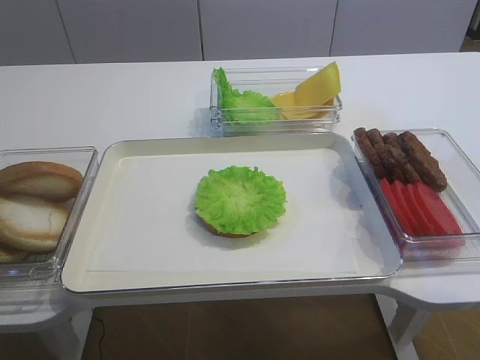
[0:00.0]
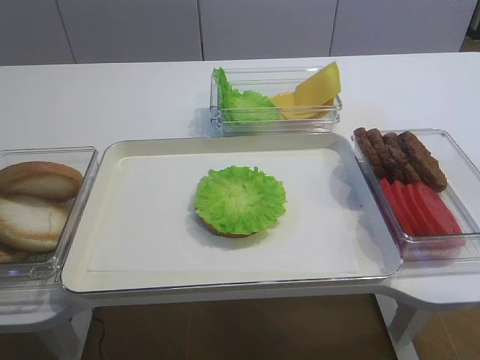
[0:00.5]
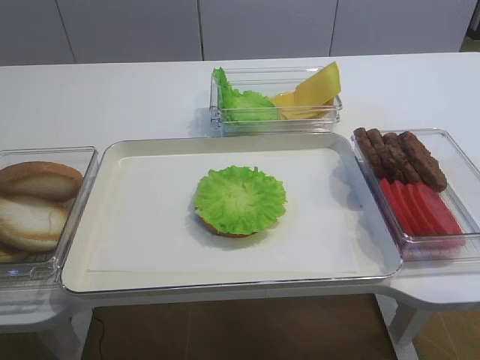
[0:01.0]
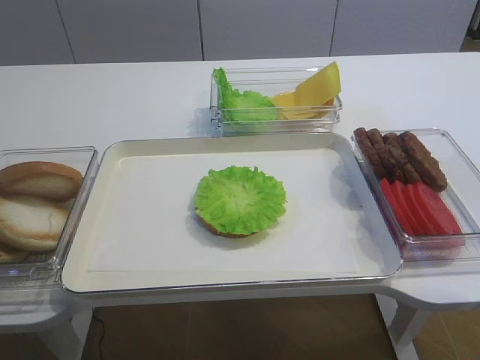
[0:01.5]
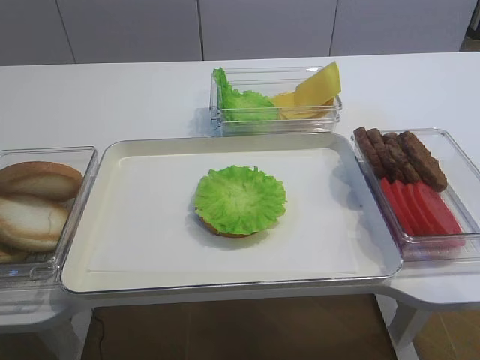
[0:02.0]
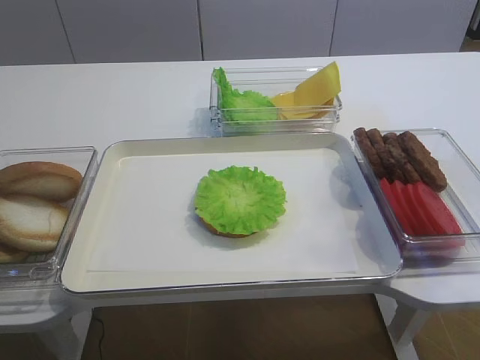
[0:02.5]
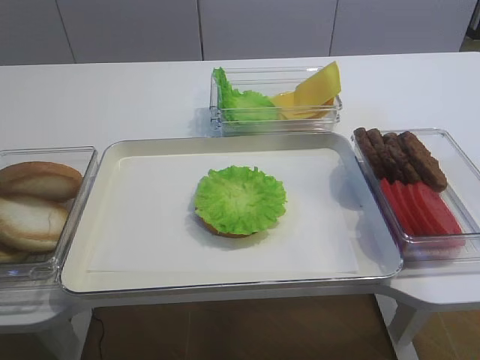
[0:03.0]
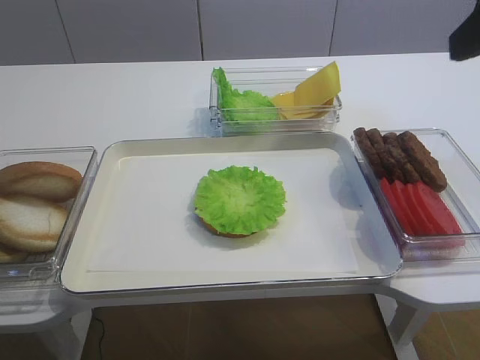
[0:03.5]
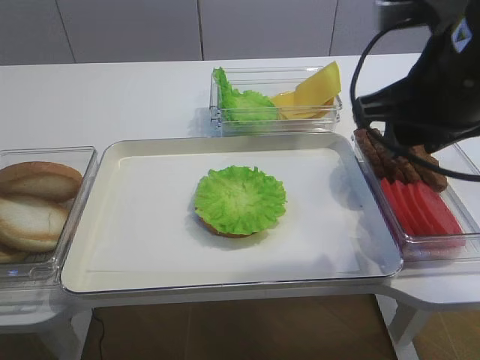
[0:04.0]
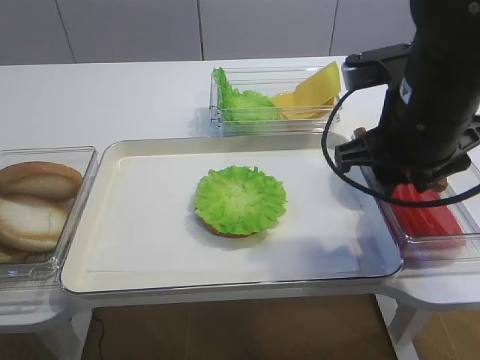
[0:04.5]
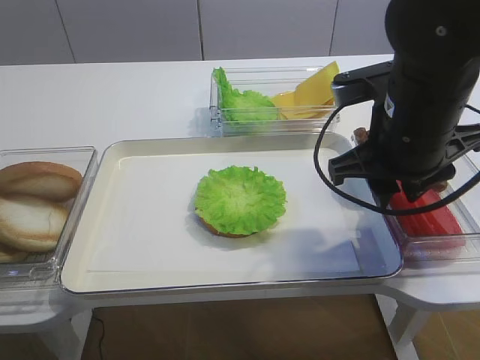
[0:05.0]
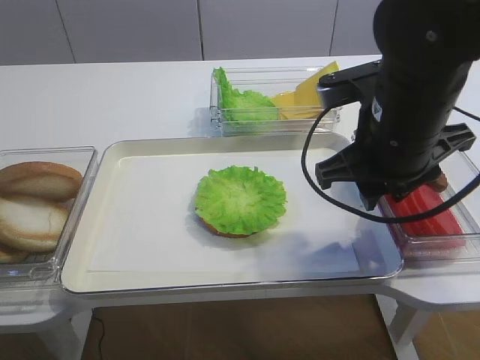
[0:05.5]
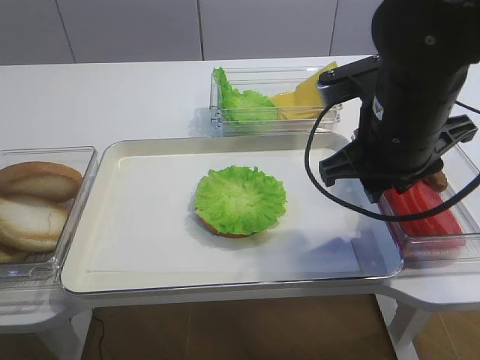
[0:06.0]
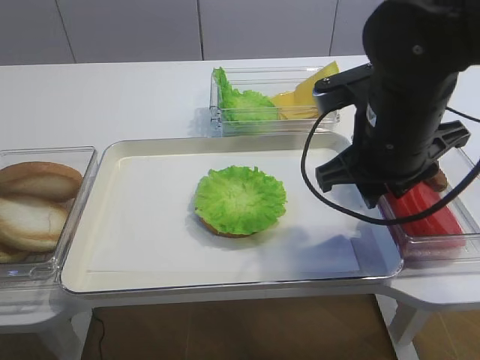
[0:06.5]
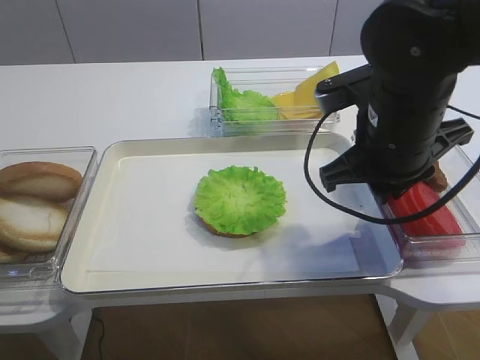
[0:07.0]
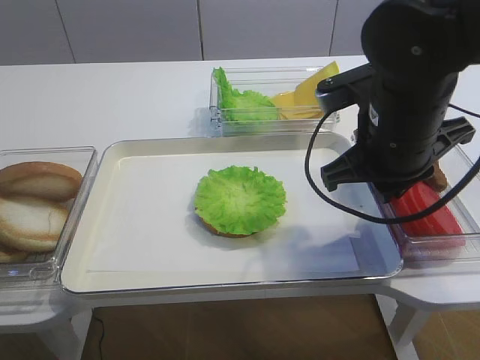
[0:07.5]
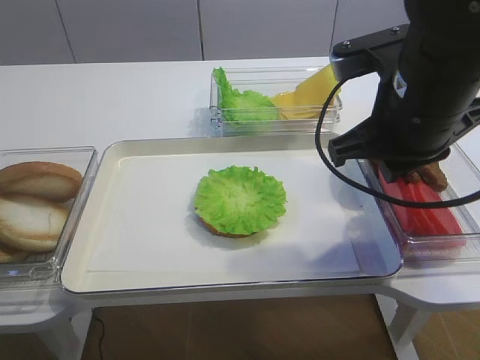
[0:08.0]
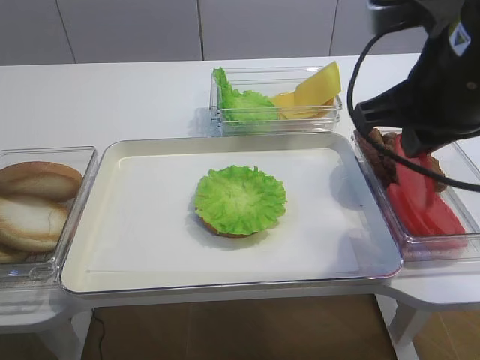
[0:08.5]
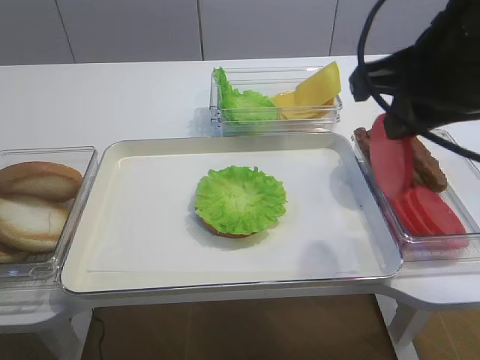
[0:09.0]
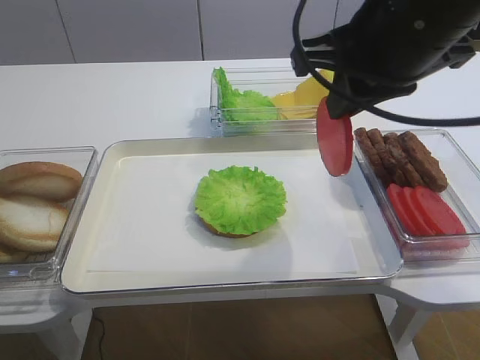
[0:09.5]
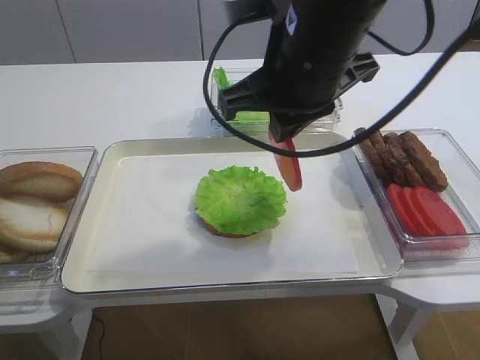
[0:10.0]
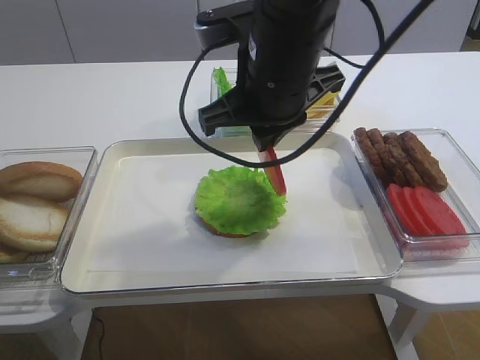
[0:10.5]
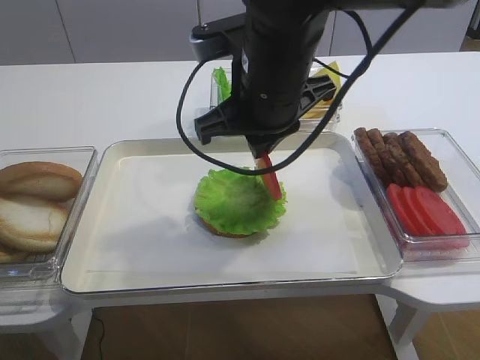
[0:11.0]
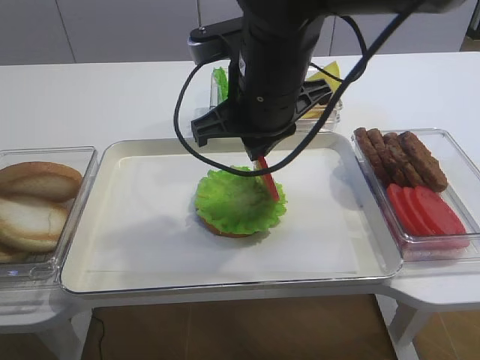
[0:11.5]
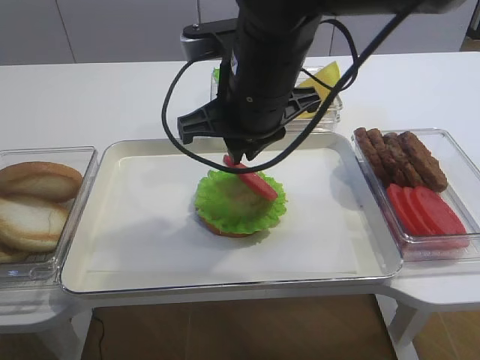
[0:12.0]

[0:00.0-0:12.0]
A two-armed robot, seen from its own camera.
Step, 0:00.0 to 0:08.5: Pick up the tomato slice with the right gripper.
0:02.0 to 0:04.0: The right gripper shifts roughly 25 cm forward and to the left.
0:04.0 to 0:06.0: The right gripper travels downward by approximately 5 cm.
0:06.0 to 0:08.0: The right gripper closes up.
0:08.0 to 0:10.0: The right gripper is displaced to the left by approximately 10 cm.
0:10.0 to 0:12.0: The right gripper changes place by roughly 5 cm.

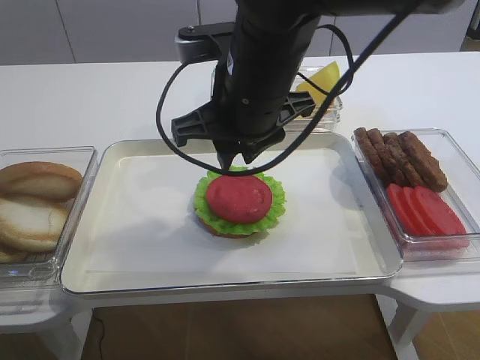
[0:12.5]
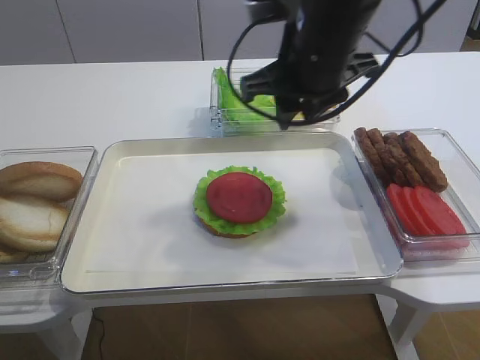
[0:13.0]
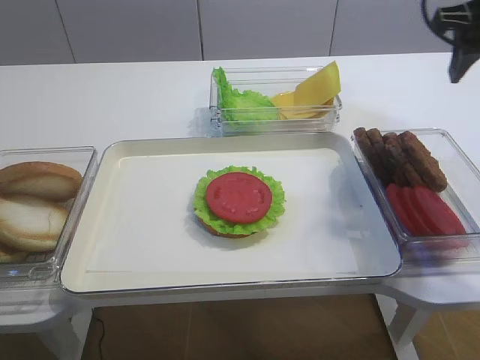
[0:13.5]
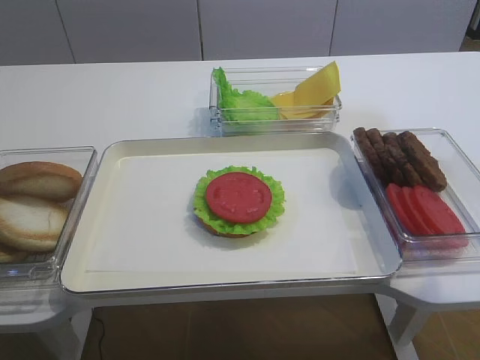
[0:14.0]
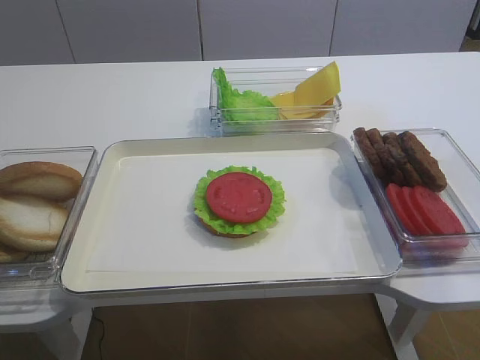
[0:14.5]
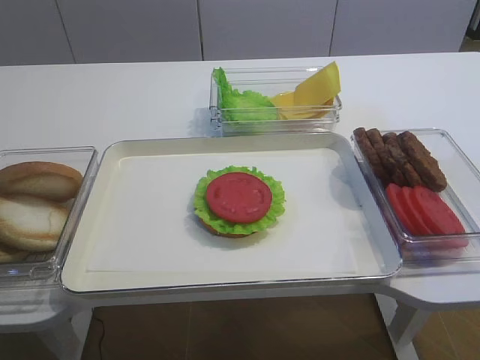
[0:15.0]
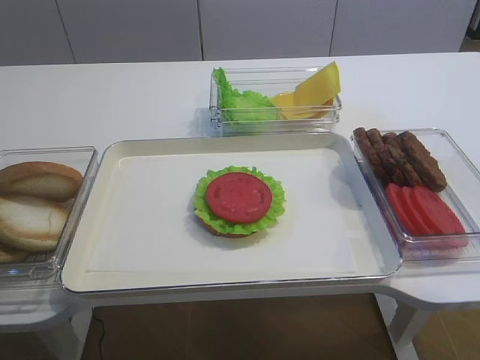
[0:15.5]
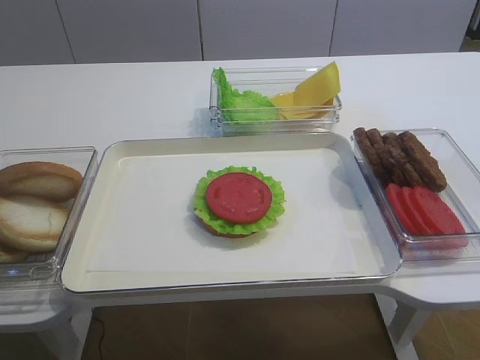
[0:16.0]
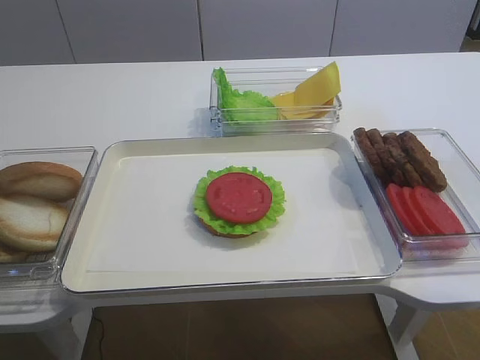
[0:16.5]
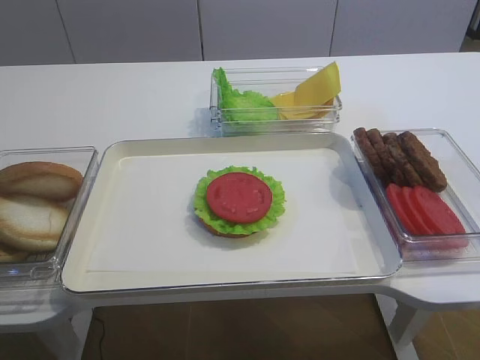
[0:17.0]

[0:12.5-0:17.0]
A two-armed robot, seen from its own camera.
0:12.5 to 0:14.5: The right gripper moves to the right and backward, some 30 cm, and opens.
0:14.5 to 0:17.0: The right gripper is displaced backward and downward by approximately 15 cm.

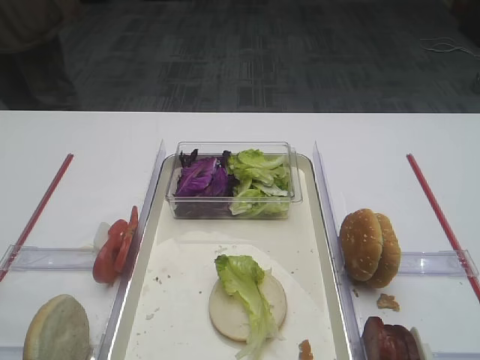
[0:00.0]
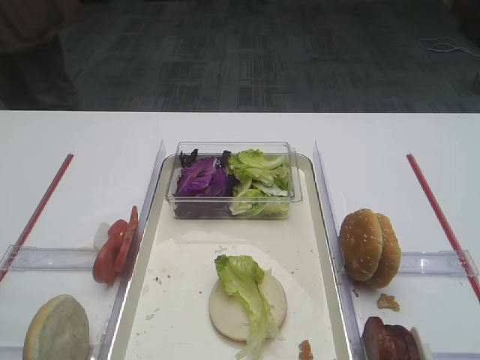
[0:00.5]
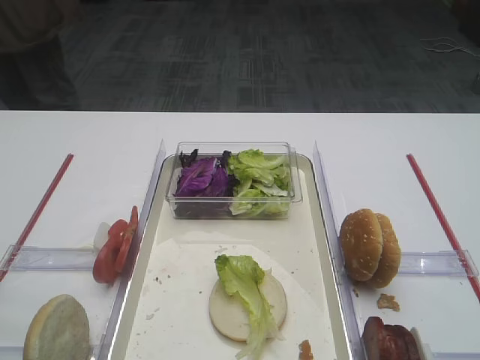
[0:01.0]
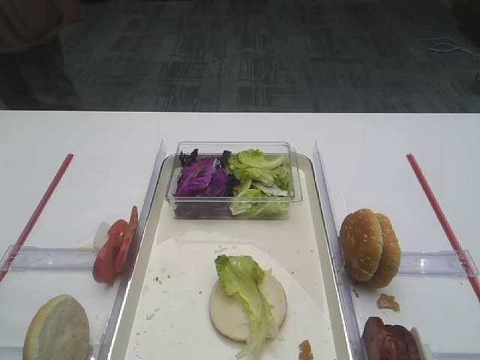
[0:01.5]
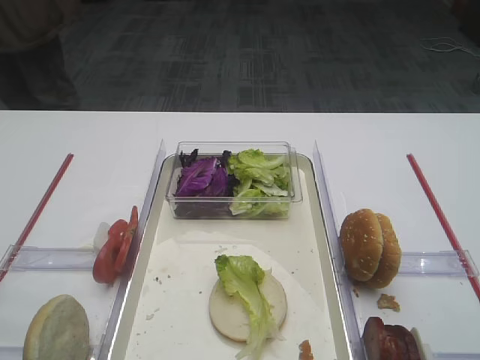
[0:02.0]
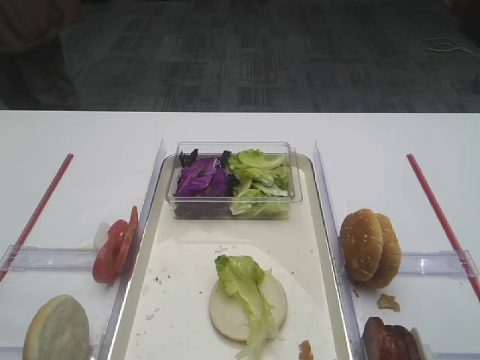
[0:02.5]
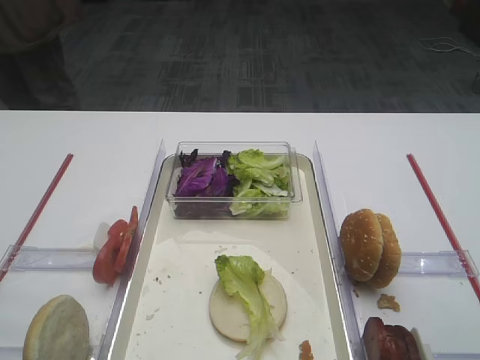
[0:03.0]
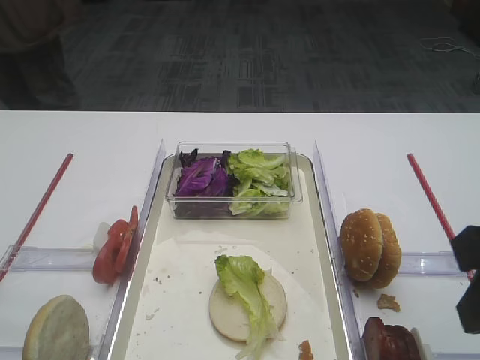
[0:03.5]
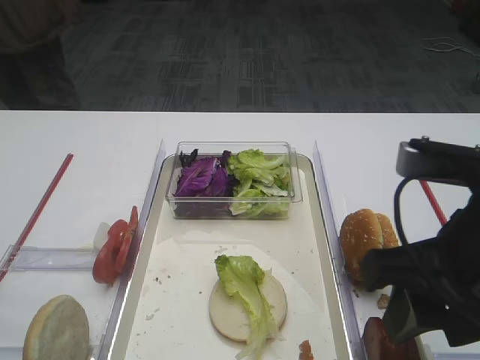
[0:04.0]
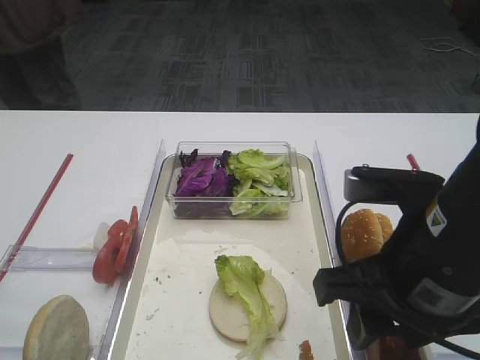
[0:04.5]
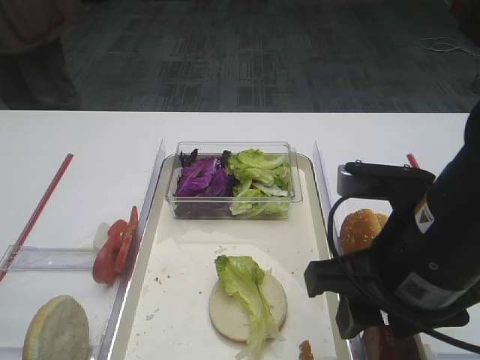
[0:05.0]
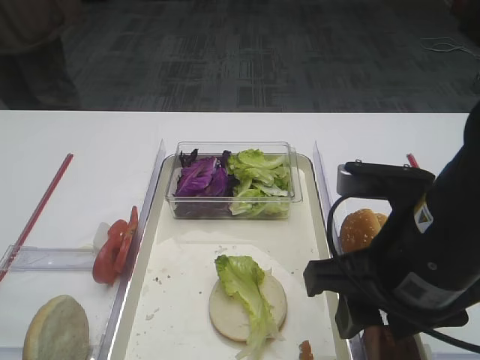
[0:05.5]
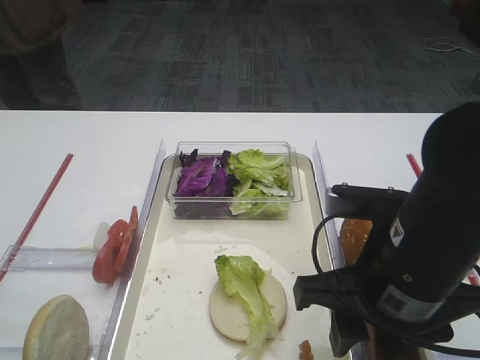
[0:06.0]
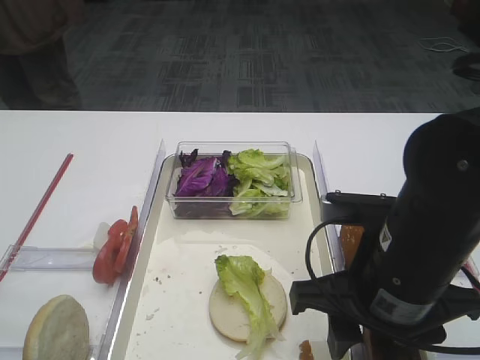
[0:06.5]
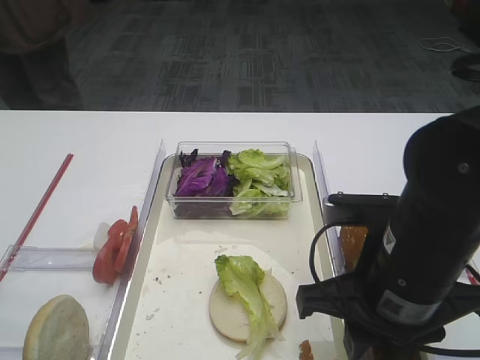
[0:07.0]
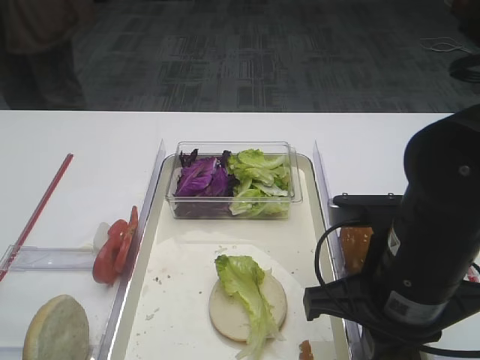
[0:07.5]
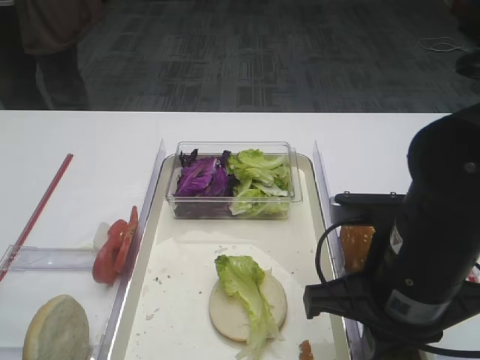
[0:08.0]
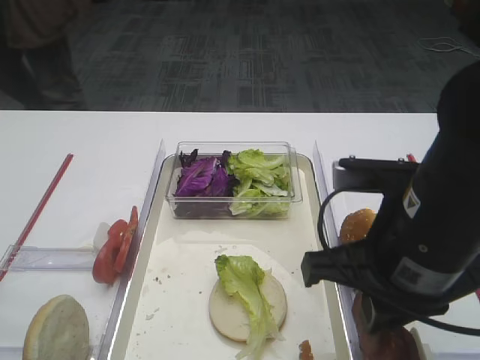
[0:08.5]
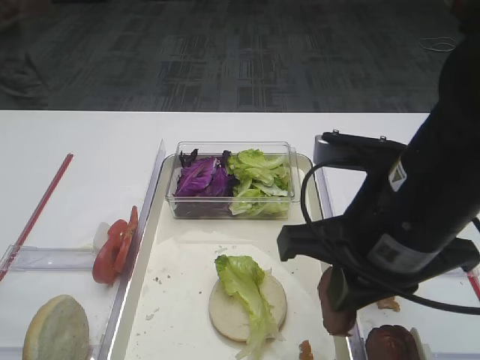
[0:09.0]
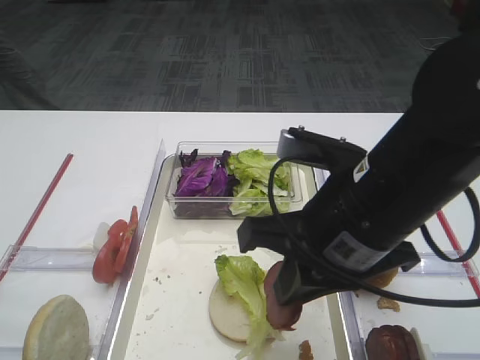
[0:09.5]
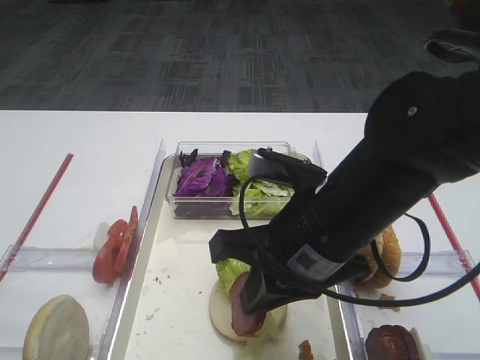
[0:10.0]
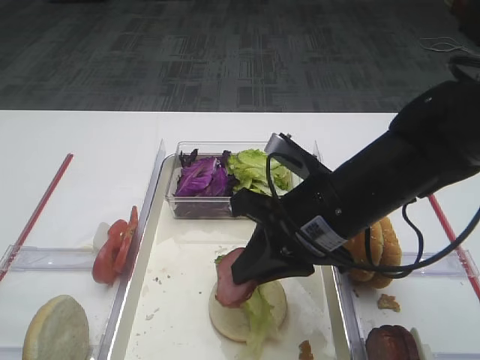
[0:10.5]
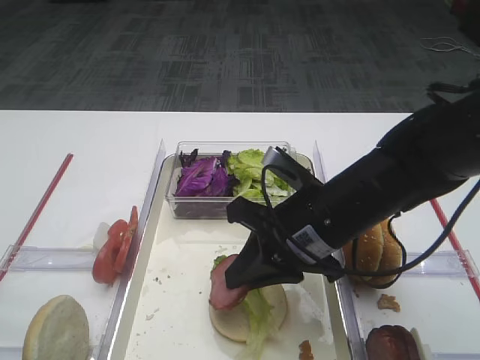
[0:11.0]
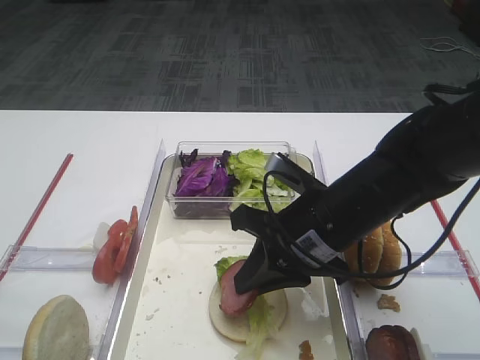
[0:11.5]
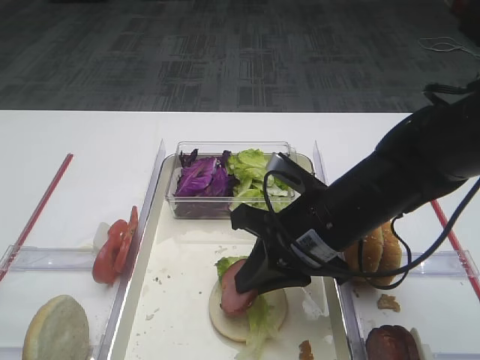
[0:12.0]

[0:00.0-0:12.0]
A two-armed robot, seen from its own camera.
Step, 0:00.0 to 0:08.5: Pick up the cutlet with the right gripper.
0:02.0 to 0:04.0: The right gripper is displaced to the left, forward and downward by approximately 15 cm.
0:04.0 to 0:06.0: The right gripper shifts roughly 5 cm downward.
0:06.0 to 0:08.0: The right gripper closes up.
0:08.0 to 0:10.0: The right gripper moves to the left, roughly 5 cm.
0:10.0 to 0:12.0: The right gripper ends up approximately 5 cm from where it was.
